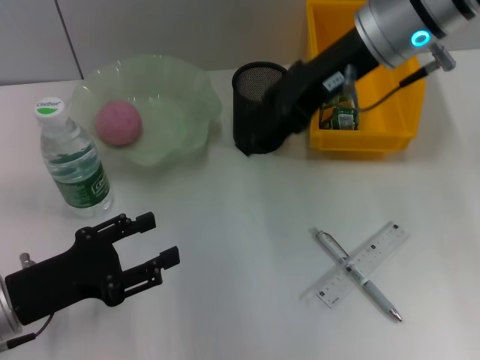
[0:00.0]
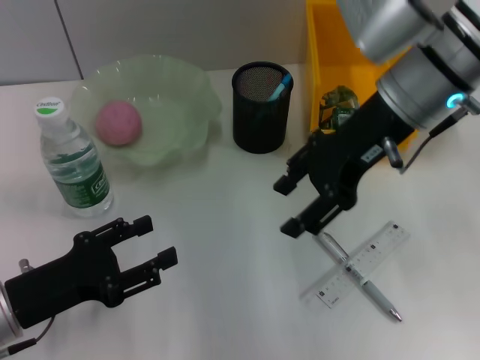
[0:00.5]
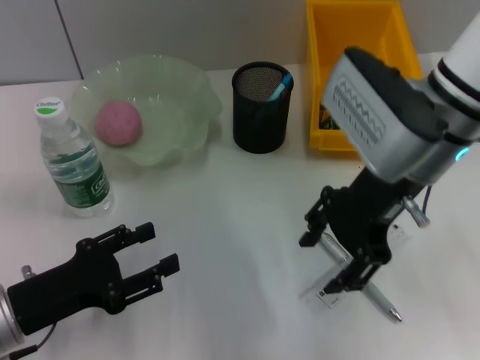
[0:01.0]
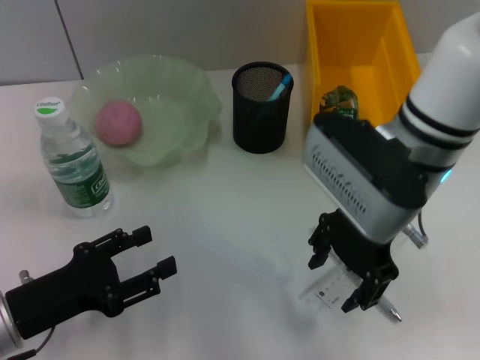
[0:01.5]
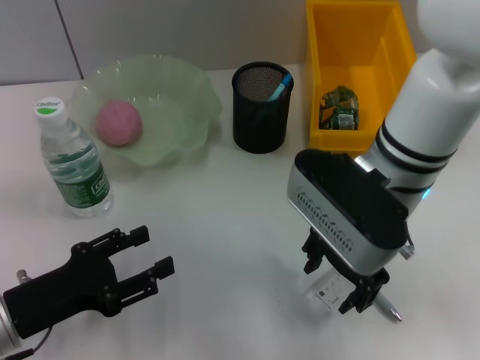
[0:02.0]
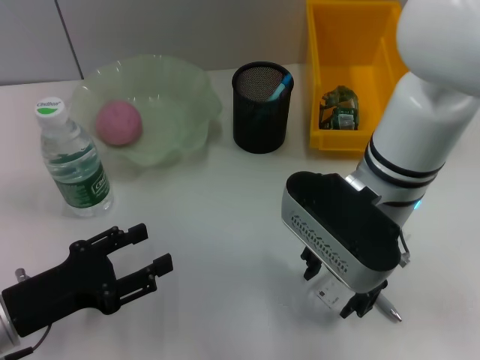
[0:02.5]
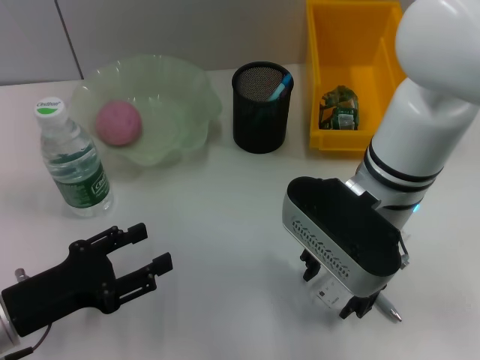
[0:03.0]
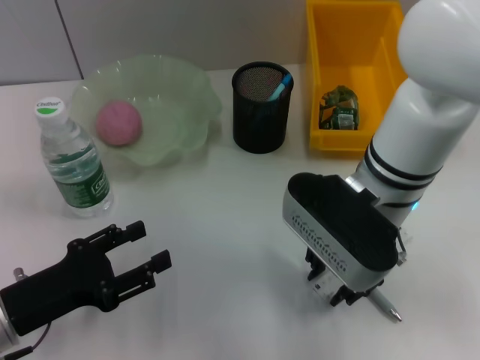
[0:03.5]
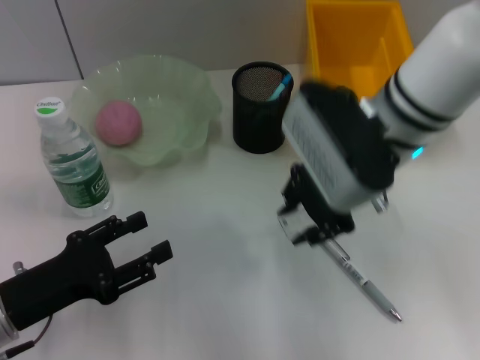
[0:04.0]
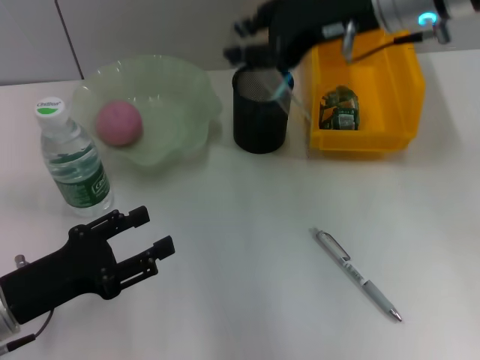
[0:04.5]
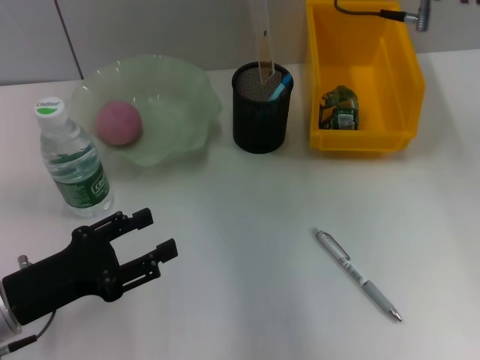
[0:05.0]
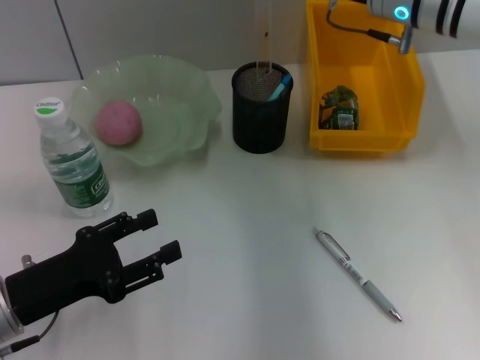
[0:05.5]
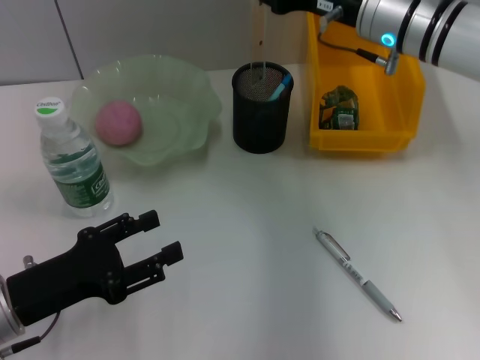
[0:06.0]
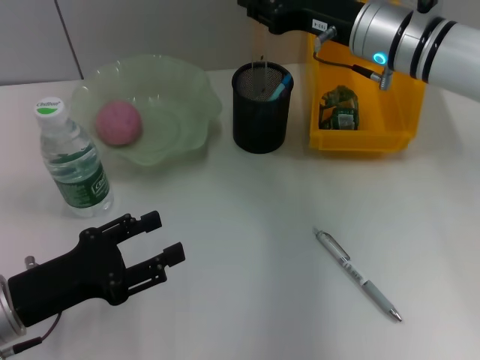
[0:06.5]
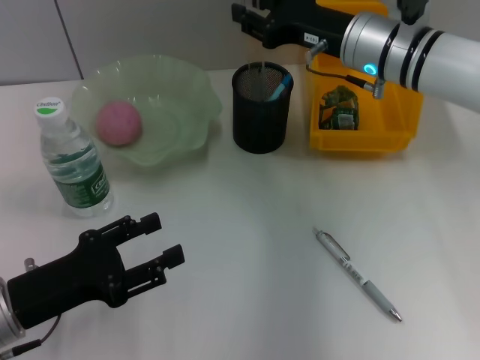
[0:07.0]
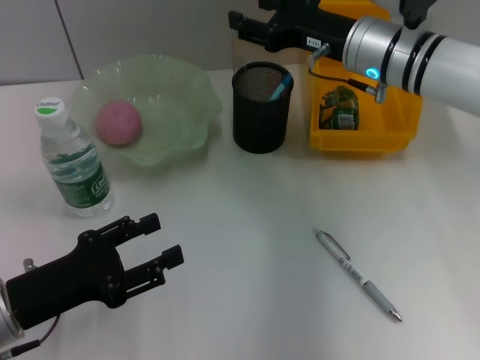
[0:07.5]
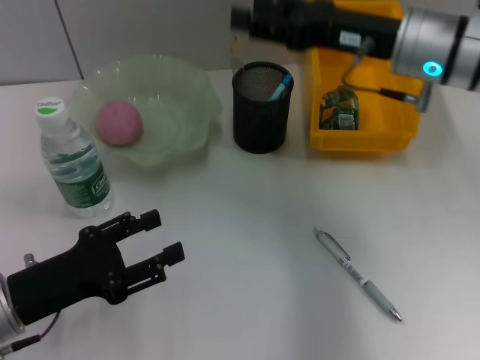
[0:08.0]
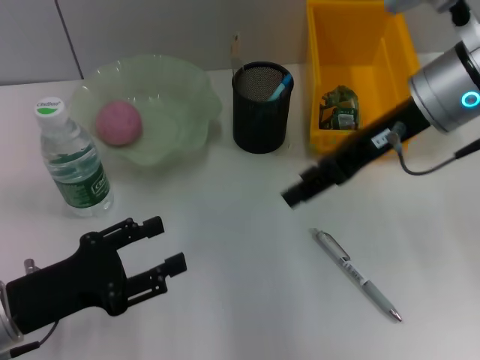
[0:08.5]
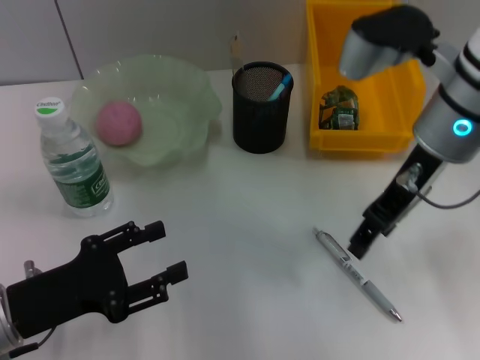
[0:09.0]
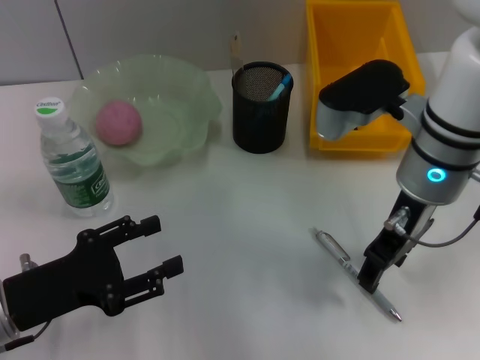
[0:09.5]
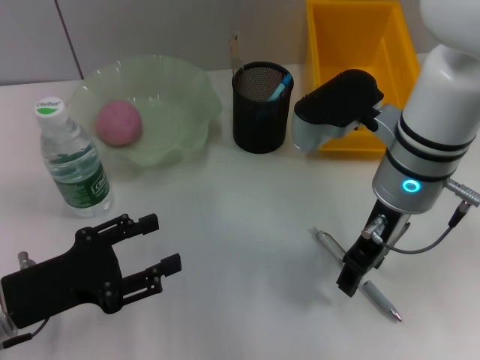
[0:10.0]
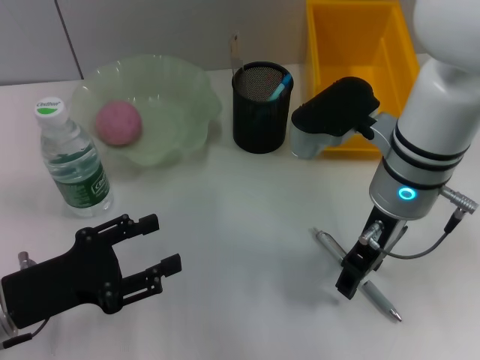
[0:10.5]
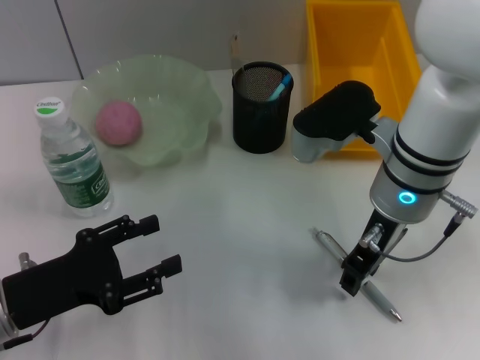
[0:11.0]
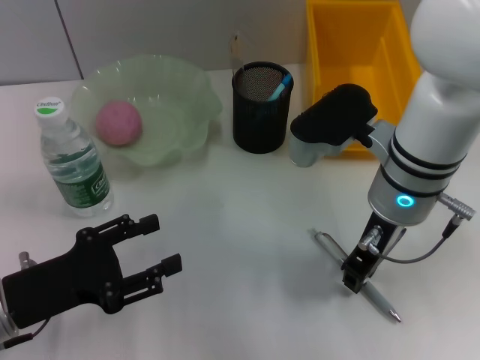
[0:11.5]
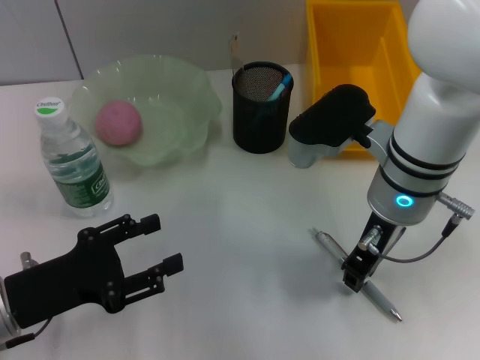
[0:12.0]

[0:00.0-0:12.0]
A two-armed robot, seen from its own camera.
Step, 0:00.0 to 0:03.0: Grab the ruler with the right hand.
Step, 0:03.5 to 0:07.0: Place the ruler into the pen holder with the right hand.
0:00.0 to 0:02.0: The right gripper goes roughly 10 cm downward and backward.
0:02.0 to 0:04.0: The right gripper closes.
0:04.0 to 0:06.0: The right gripper moves forward and to the right, approximately 10 cm.
0:06.0 to 0:08.0: The right gripper ends up roughly 5 cm from where it was, and opens up.
0:08.0 to 0:10.0: The right gripper heads to the left and backward, covering roughly 10 cm.
0:10.0 to 0:12.0: The right gripper closes its fingers.

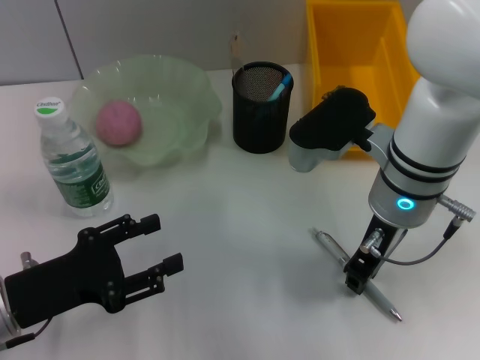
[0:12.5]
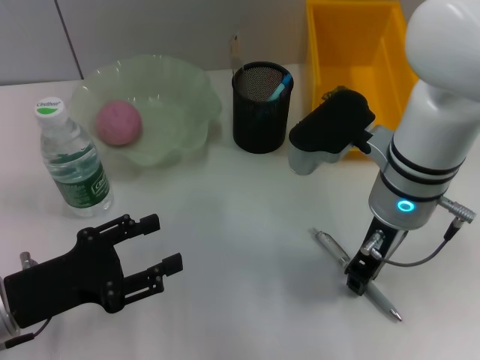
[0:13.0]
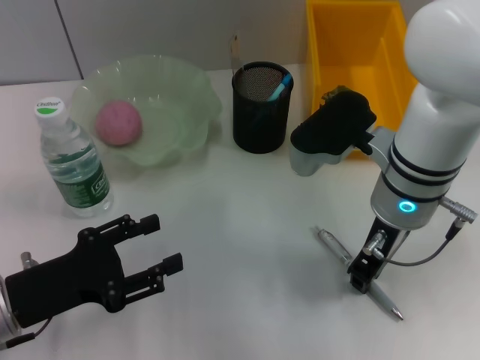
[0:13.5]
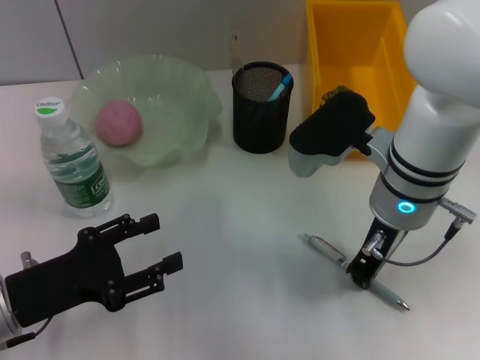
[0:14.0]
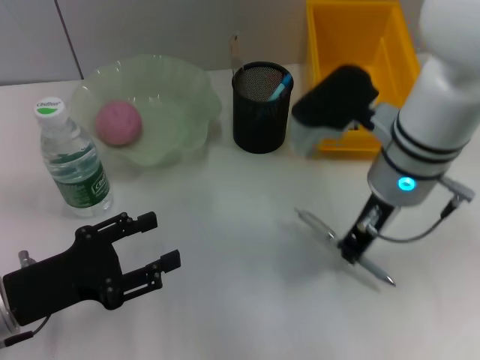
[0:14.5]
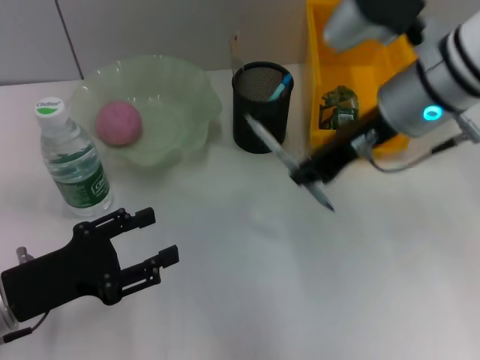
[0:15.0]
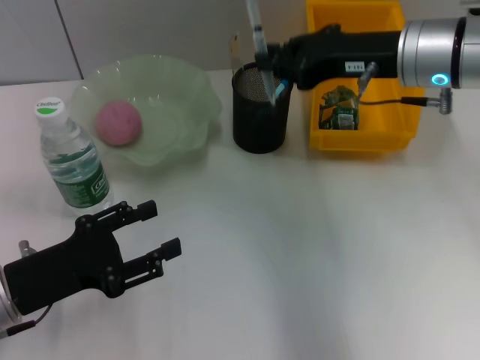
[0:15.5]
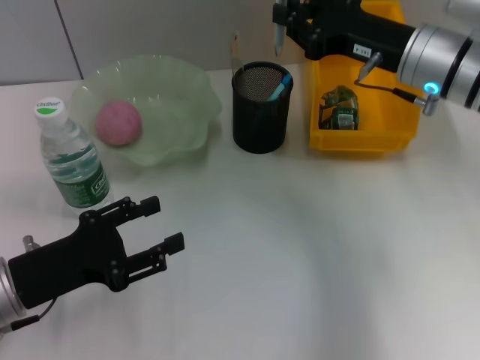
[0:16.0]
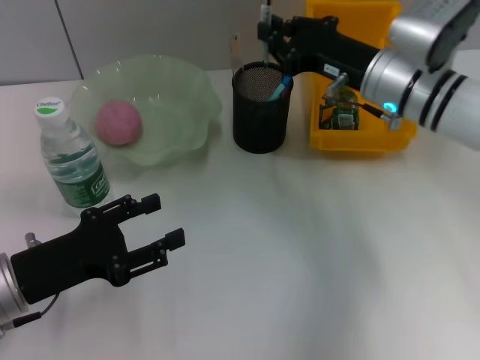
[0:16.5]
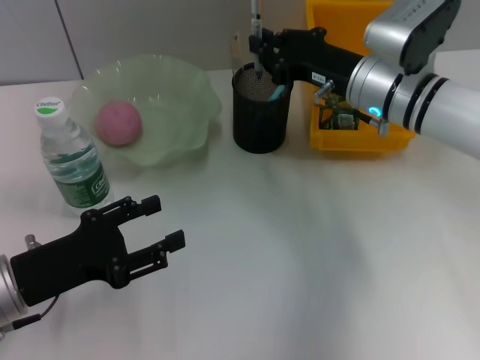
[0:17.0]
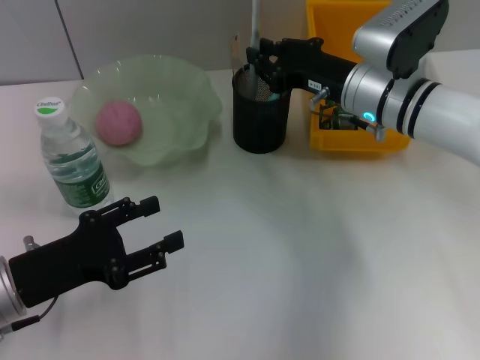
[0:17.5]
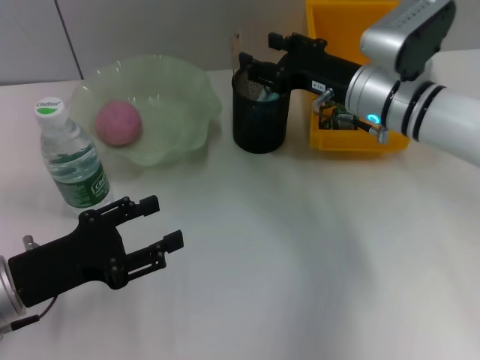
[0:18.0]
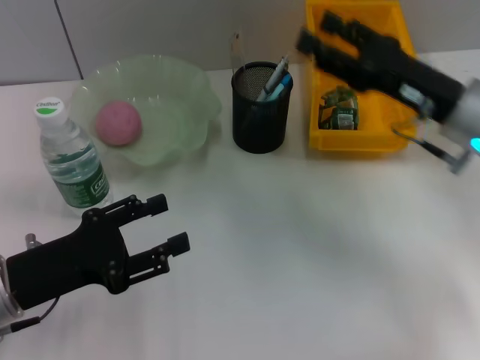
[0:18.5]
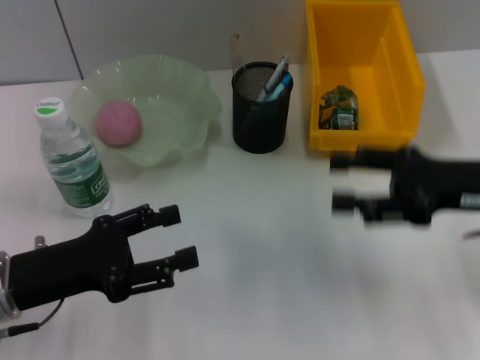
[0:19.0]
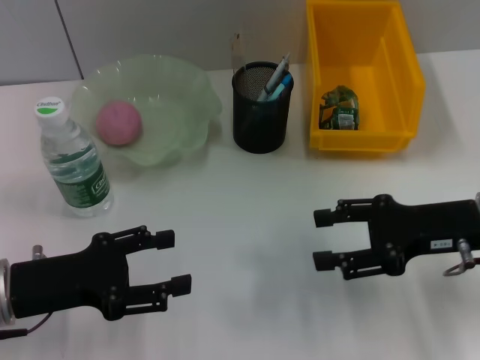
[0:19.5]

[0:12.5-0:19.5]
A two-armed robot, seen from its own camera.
Step, 0:14.5 to 0:17.5: Place the gray spring-action pen into the pen holder with the right hand.
0:12.5 to 0:14.5: There are only small adjustments of the grippers.
0:14.5 to 0:16.0: The right gripper moves to the right and forward, approximately 10 cm.
0:16.0 to 0:17.5: The right gripper travels downward by approximately 5 cm.
0:17.5 to 0:19.5: The right gripper moves backward and to the right, approximately 15 cm, and opens.
